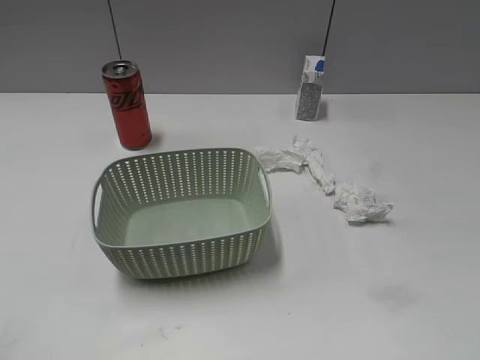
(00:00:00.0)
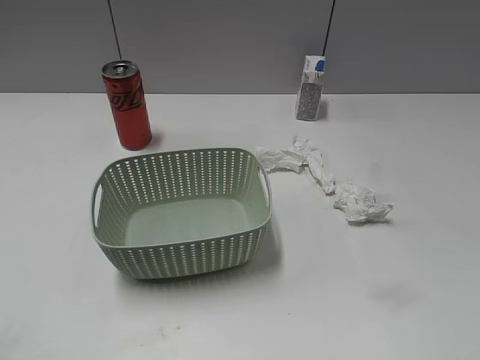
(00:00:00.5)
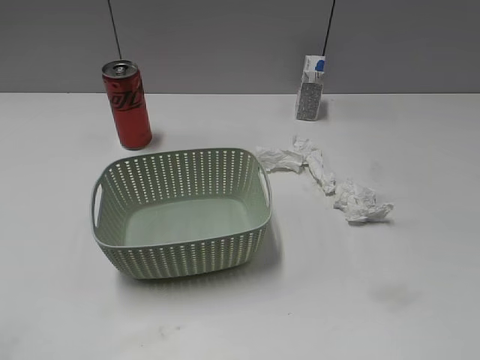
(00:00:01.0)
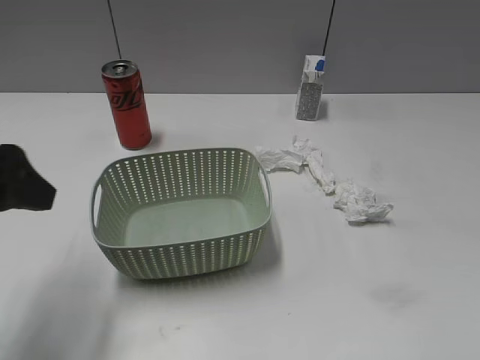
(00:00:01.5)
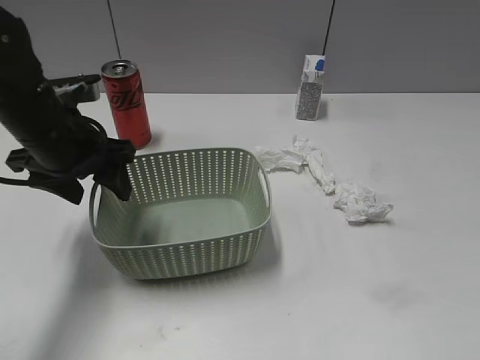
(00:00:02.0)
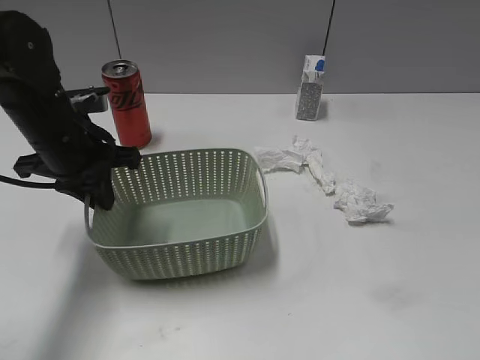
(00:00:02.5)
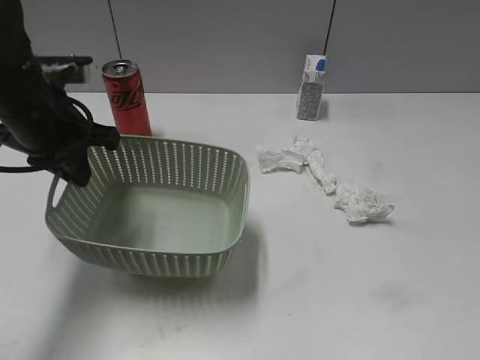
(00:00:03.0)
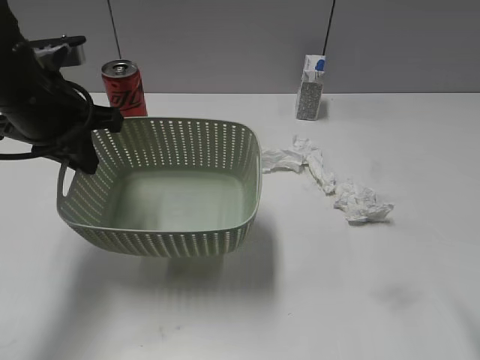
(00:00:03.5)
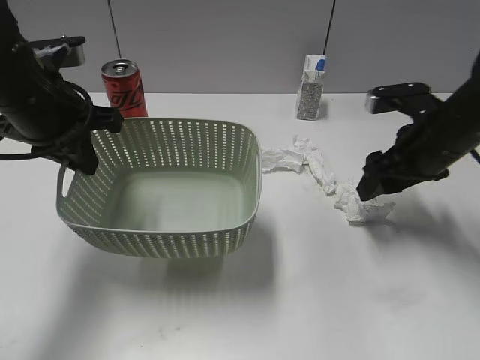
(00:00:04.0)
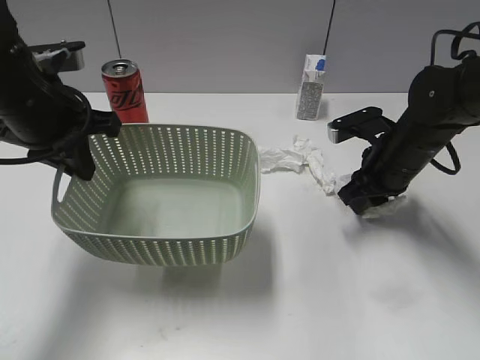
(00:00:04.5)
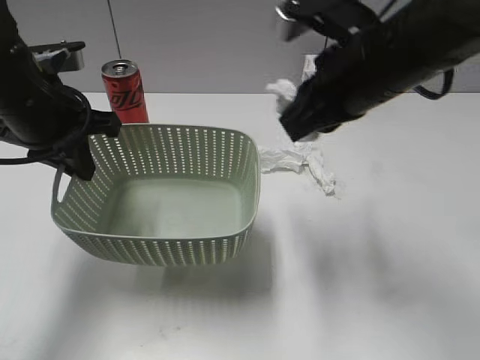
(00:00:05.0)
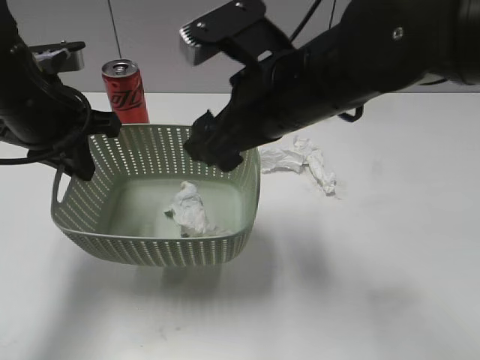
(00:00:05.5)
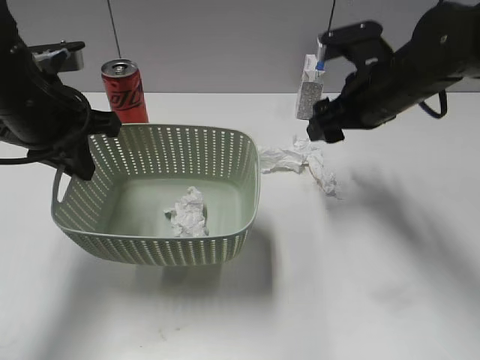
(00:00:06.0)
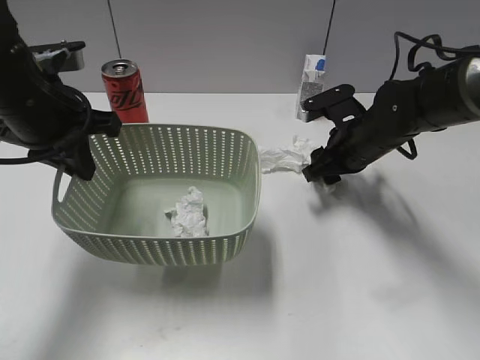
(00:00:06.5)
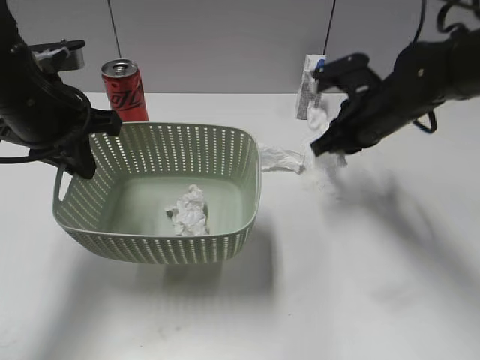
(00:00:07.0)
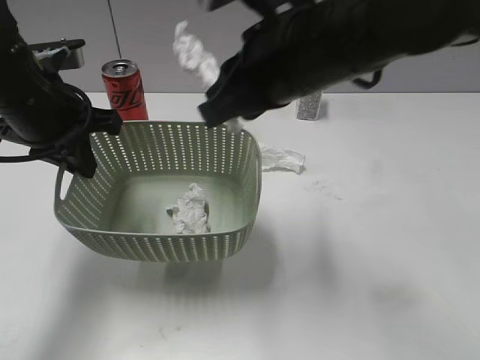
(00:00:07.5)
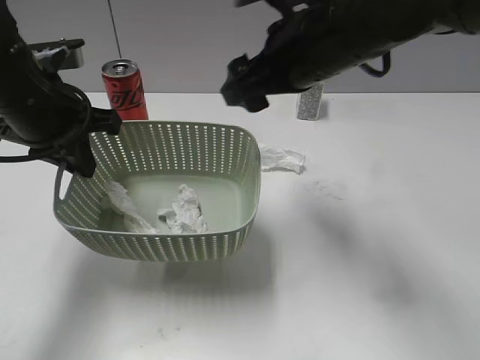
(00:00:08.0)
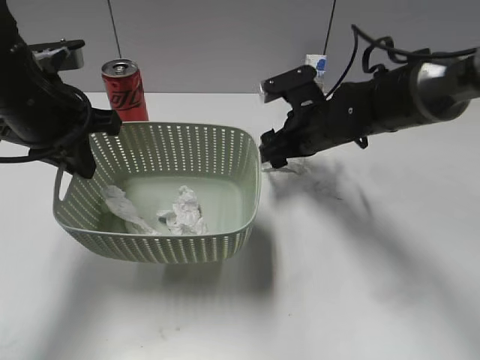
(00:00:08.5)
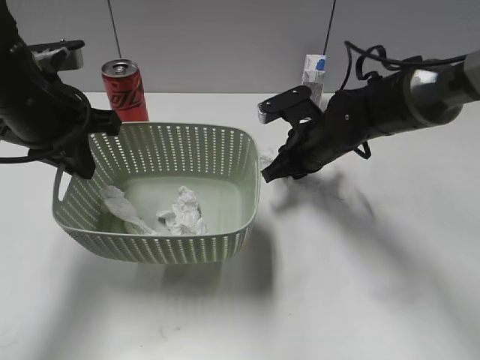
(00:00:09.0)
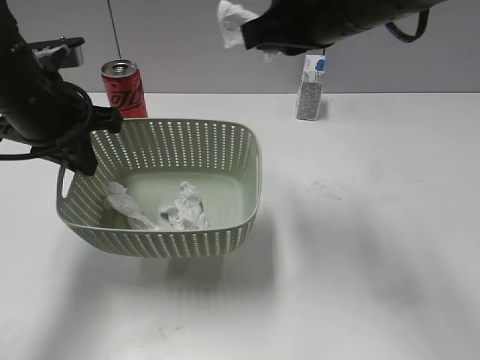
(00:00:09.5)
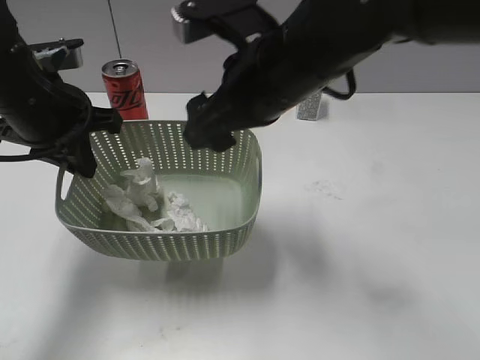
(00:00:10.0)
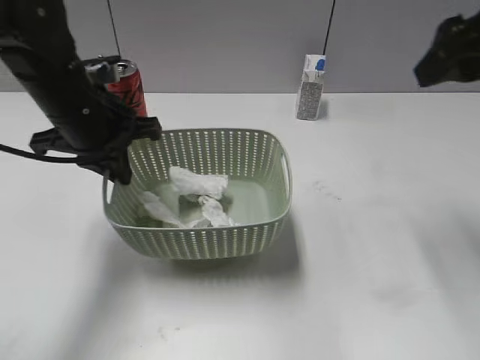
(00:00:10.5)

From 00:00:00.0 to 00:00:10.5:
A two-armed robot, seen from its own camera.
Step, from 00:00:01.5 to 00:00:02.5: Grasp the basket with left gripper.
Step, from 00:00:03.5 to 00:00:04.5: Grasp the waste paper with right gripper.
Step, from 00:00:05.0 to 00:00:05.5: Place the waste paper in the basket with right gripper.
Step, from 00:00:06.0 to 00:00:07.0: Grasp the waste paper with right gripper.
Step, from 00:00:08.0 to 00:00:09.0: Grasp the waste paper with right gripper.
From 00:00:02.0 to 00:00:04.0: The left gripper closes up. Meanwhile the right gripper is displaced forward by about 35 cm.
From 00:00:04.0 to 00:00:06.5: The right gripper is displaced downward by roughly 5 cm, travels to the left and back again, approximately 15 cm each way, and closes and opens again.
From 00:00:06.5 to 00:00:08.5: The right gripper heads to the left, covering some 5 cm, goes upward and returns, roughly 15 cm each way, and closes and opens again.
From 00:00:08.5 to 00:00:10.5: The right gripper moves up and down over about 25 cm, changing direction 2 times, and closes, then reopens, while the left gripper ends up about 5 cm from where it was.

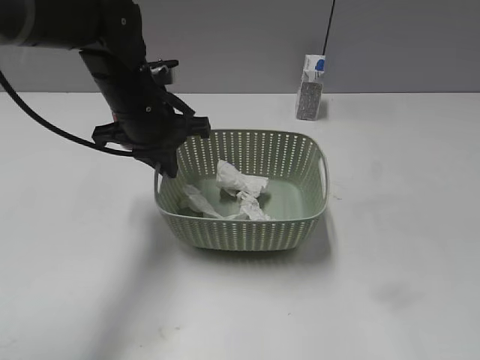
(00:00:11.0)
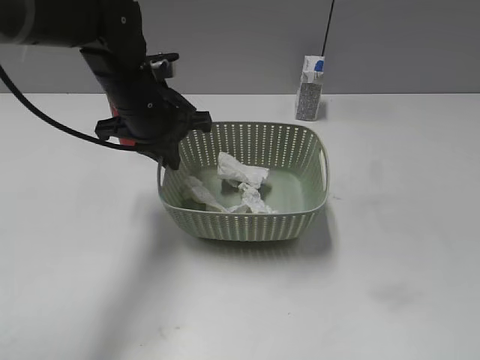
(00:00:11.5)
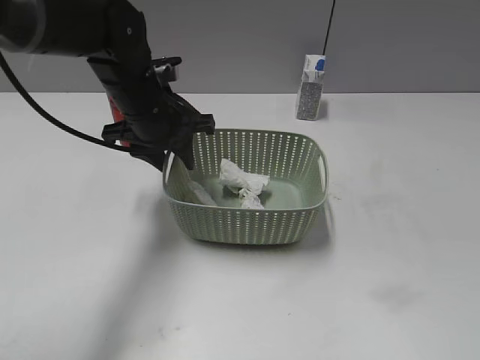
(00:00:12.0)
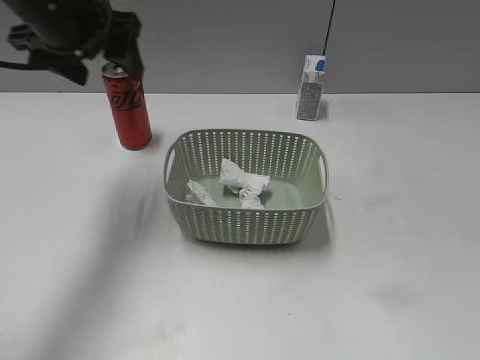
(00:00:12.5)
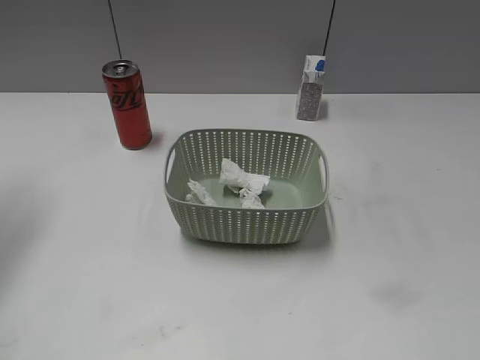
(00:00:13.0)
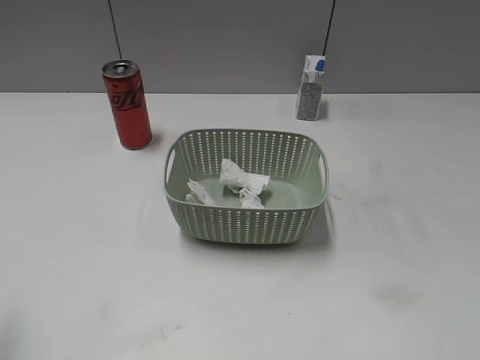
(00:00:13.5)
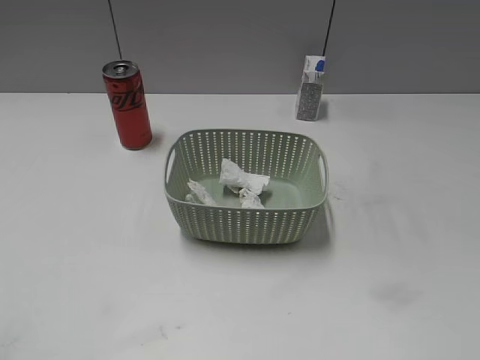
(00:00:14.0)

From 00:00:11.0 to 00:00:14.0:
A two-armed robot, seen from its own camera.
From 00:00:11.0 to 00:00:12.5: The left gripper goes about 15 cm upward and to the left, and opens up; the right gripper shifts roughly 10 cm backward.
From 00:00:12.5 to 00:00:14.0: The left gripper goes about 35 cm backward.

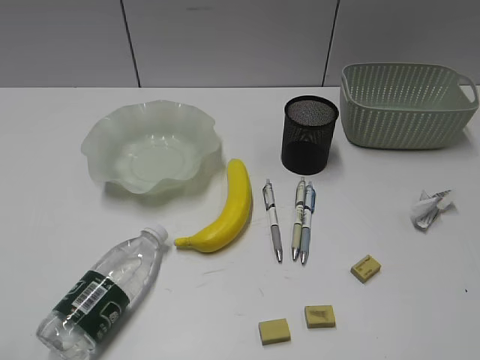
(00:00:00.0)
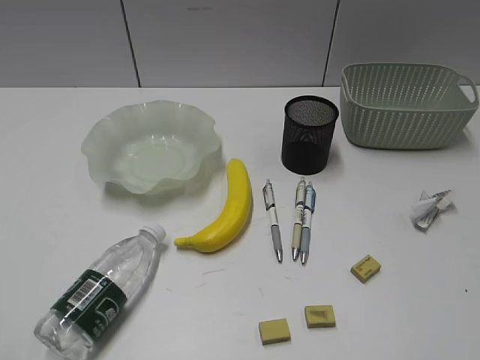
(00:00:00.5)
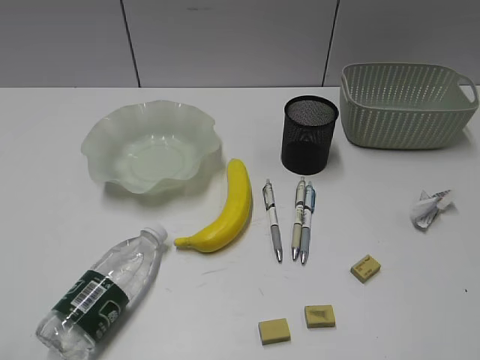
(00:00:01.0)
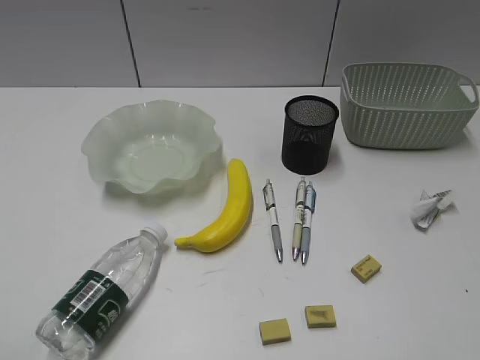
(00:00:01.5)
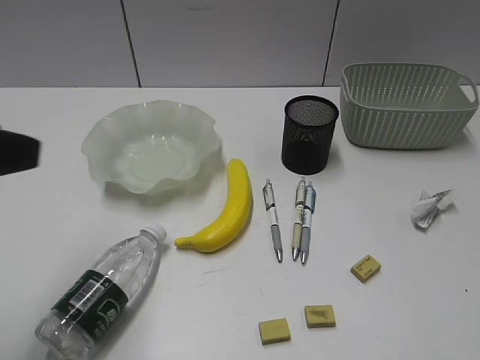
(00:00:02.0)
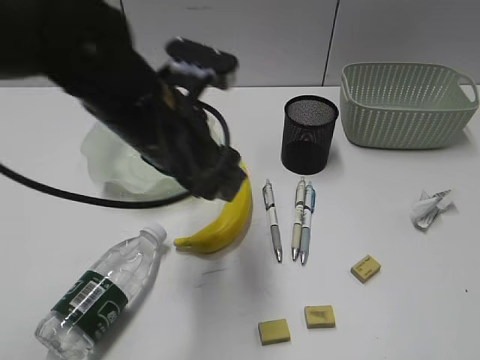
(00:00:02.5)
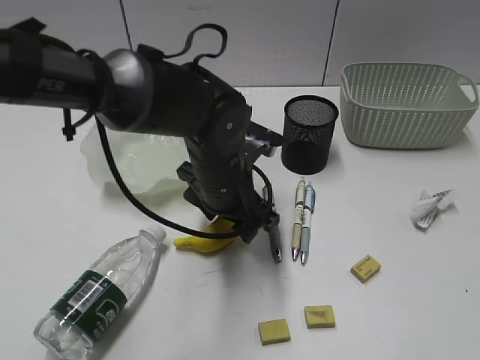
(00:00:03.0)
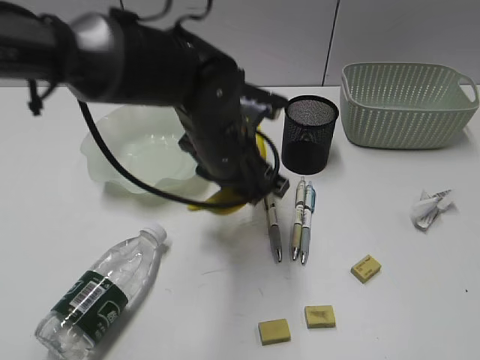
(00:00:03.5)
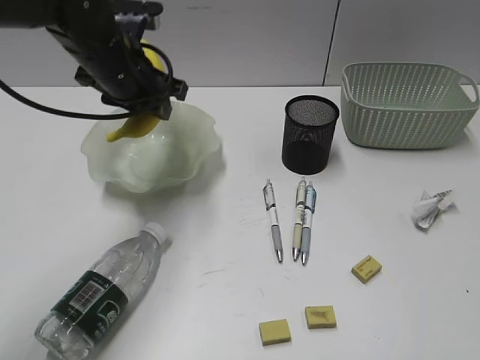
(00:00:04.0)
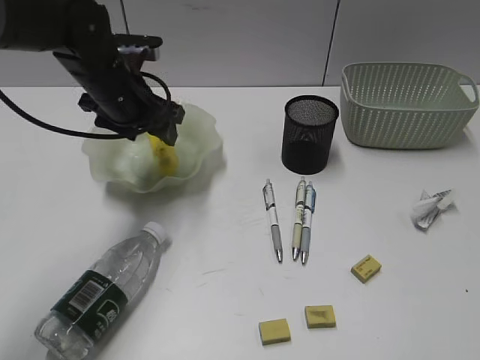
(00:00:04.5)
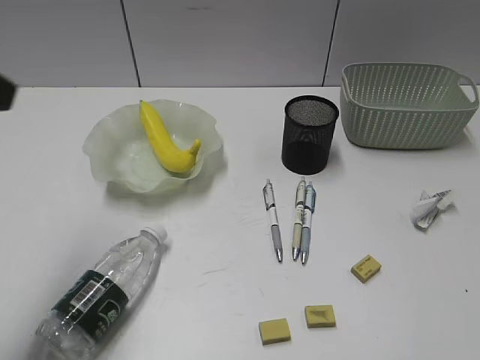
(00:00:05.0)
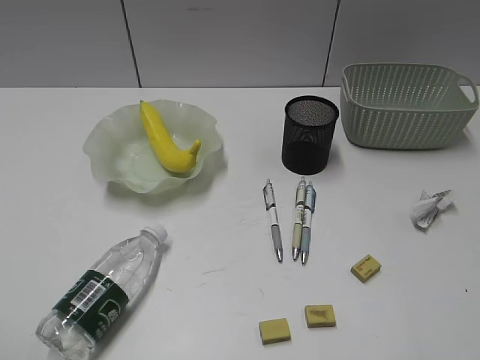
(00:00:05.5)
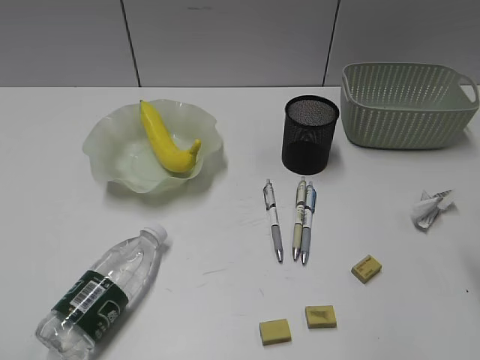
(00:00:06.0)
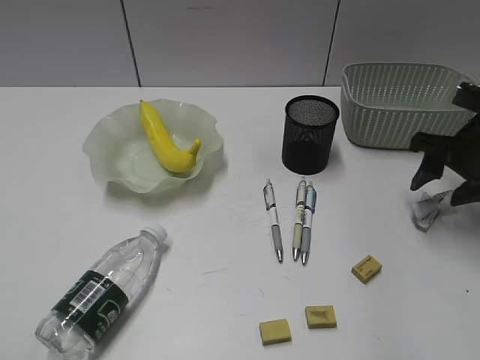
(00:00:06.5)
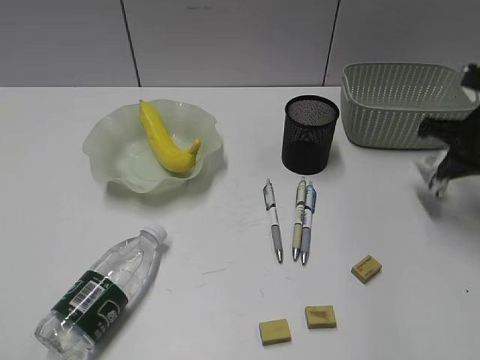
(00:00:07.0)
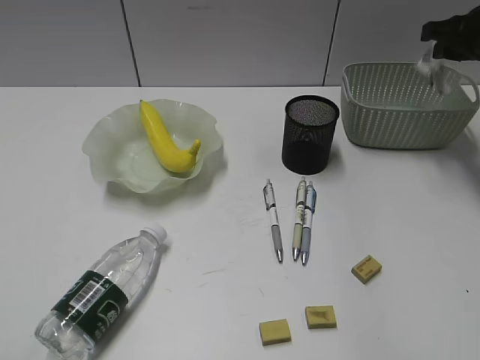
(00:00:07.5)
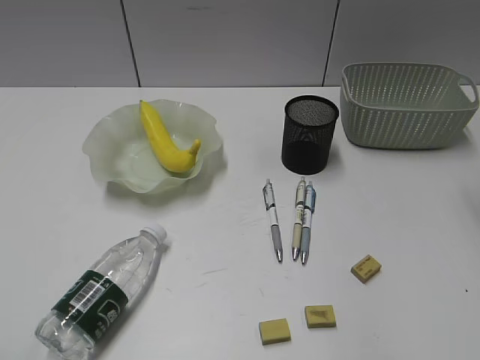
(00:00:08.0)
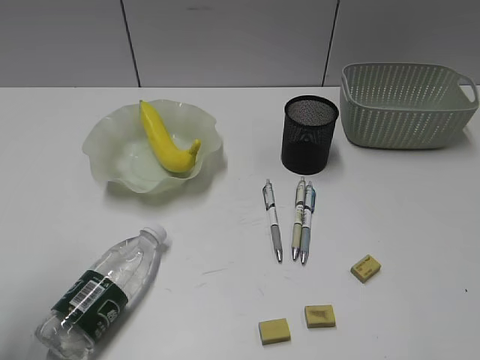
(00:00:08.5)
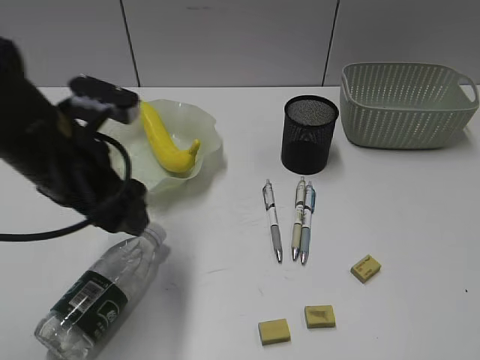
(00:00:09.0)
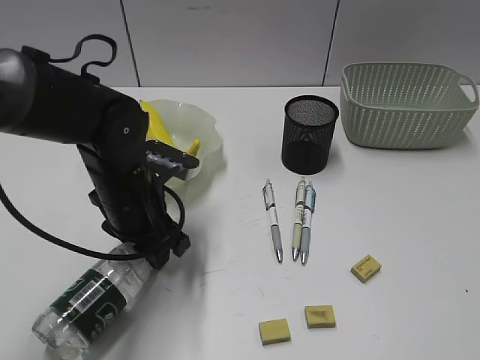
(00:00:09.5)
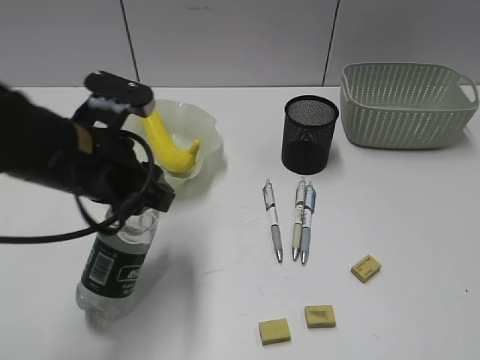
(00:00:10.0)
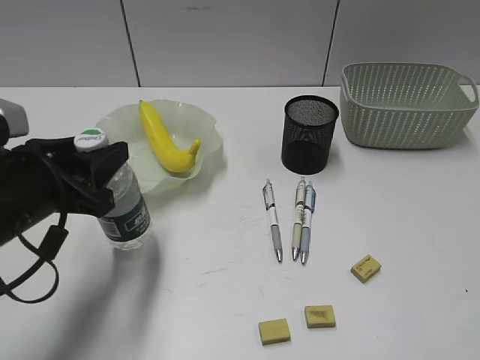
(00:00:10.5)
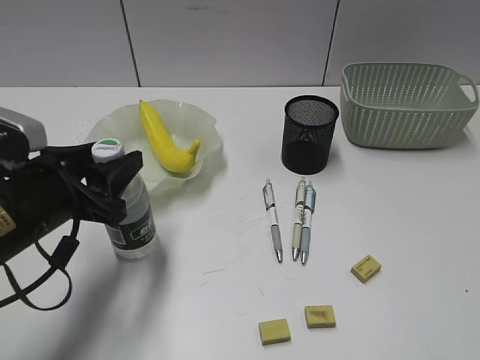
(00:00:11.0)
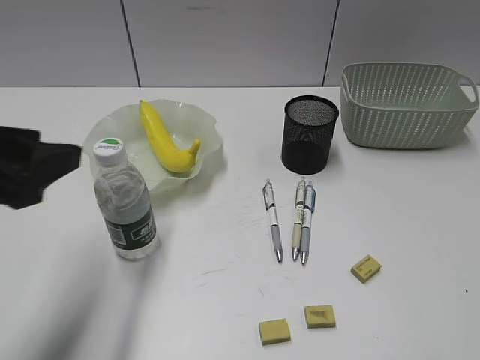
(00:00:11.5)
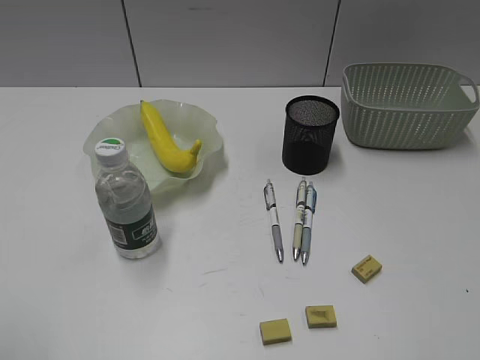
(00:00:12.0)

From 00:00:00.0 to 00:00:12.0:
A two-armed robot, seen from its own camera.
Step, from 00:00:02.0 to 00:00:03.0: Grasp the banana with left gripper.
Step, from 00:00:03.5 to 00:00:04.5: Place the banana in the plate with left gripper.
Step, from 00:00:05.0 to 00:00:06.5: Grasp the waste paper with right gripper.
Step, from 00:00:07.0 to 00:00:07.5: Place the waste paper in the basket with right gripper.
Step, from 00:00:08.0 to 00:00:09.5: Grasp the bottle with left gripper.
Step, from 00:00:10.0 to 00:00:11.0: Stand the bottle with left gripper.
From 00:00:02.0 to 00:00:04.0: The left gripper is displaced forward and to the right by some 25 cm, and closes up.
From 00:00:04.0 to 00:00:06.0: The right gripper shifts some 20 cm forward, and opens its fingers. Meanwhile the left gripper is displaced backward and to the left by some 40 cm.
From 00:00:08.0 to 00:00:10.0: The right gripper heads backward, covering approximately 30 cm. Meanwhile the left gripper travels forward and to the right by roughly 30 cm.
From 00:00:10.0 to 00:00:12.0: The left gripper travels backward, to the left and upward by approximately 30 cm.
